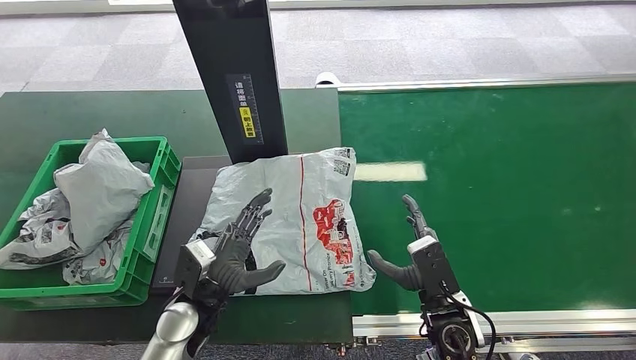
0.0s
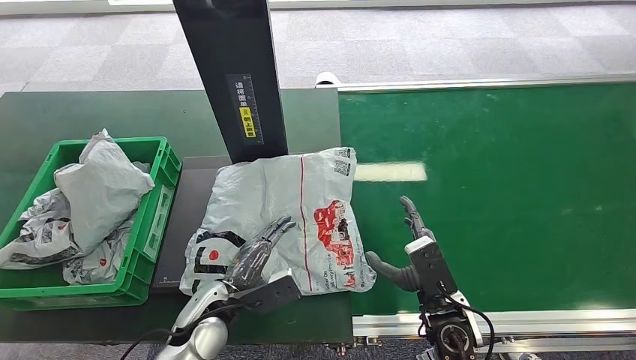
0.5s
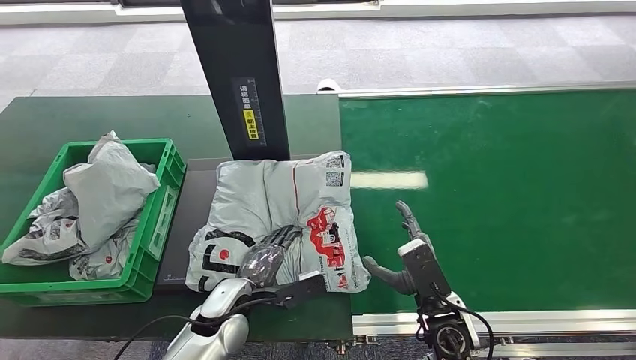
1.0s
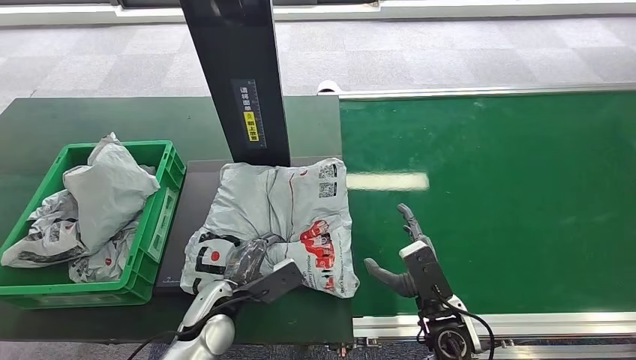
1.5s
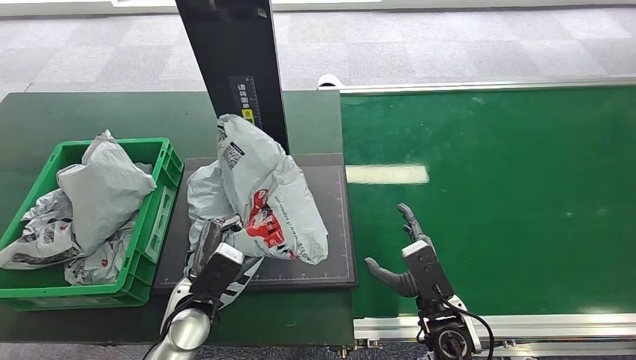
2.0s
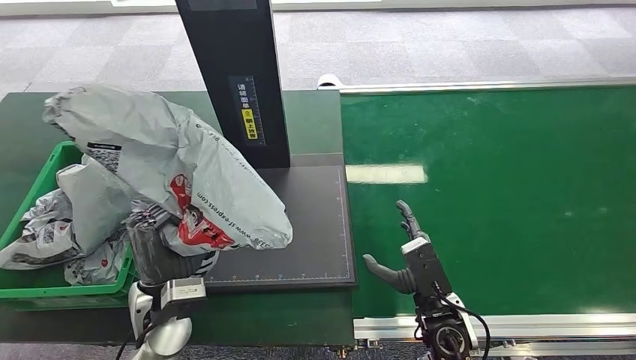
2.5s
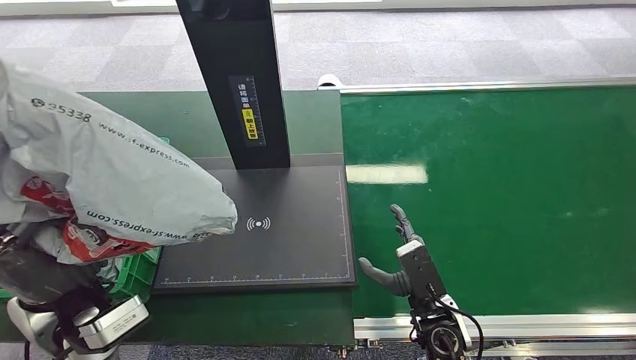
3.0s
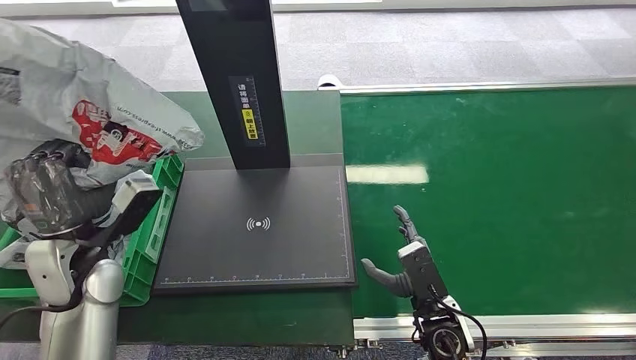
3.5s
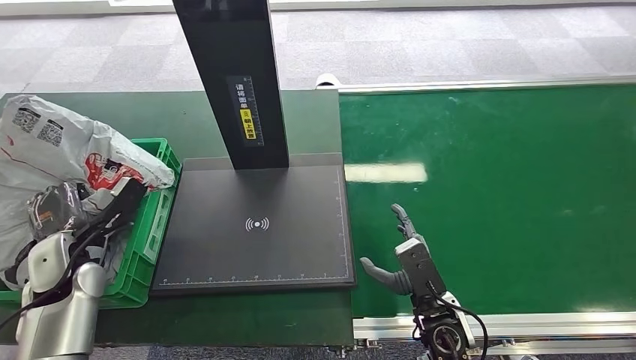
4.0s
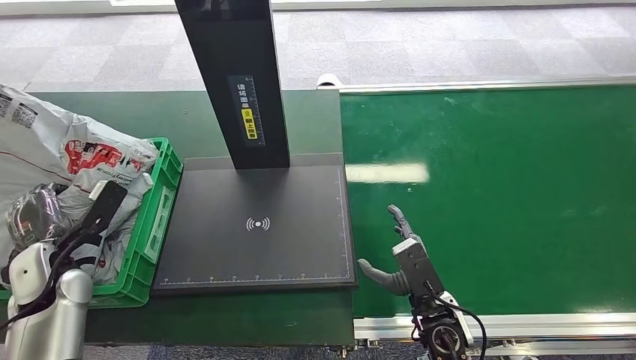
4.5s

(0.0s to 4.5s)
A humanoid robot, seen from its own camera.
Task of the whole recording: Weigh the package on the weighing device and place it in the left basket.
Step, 0.0s - 2.5s: Pick up the package from the inbound machine.
Step, 3.0s - 4.5s: Place the package into the parcel locker.

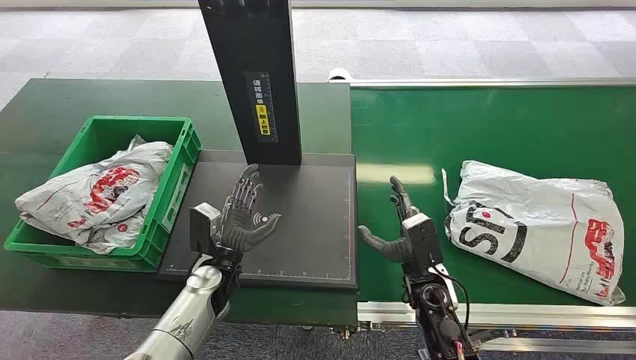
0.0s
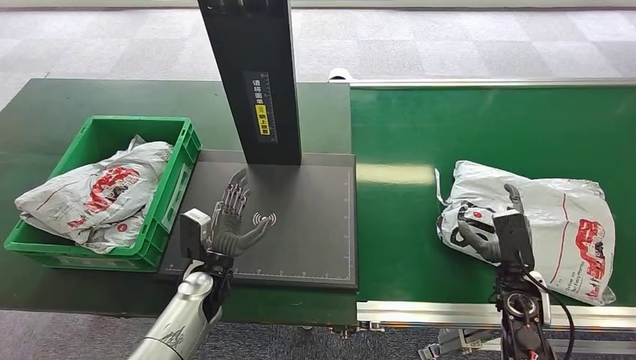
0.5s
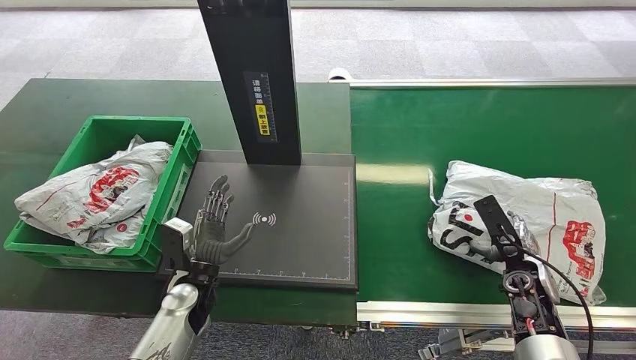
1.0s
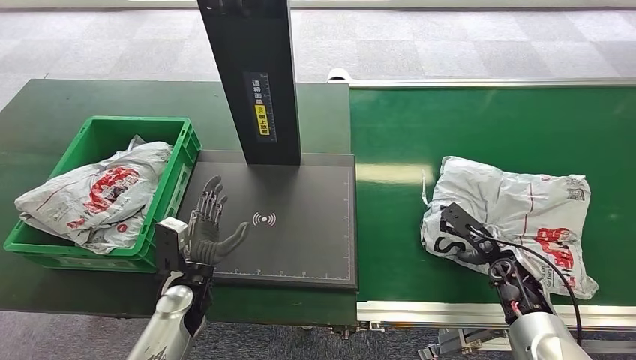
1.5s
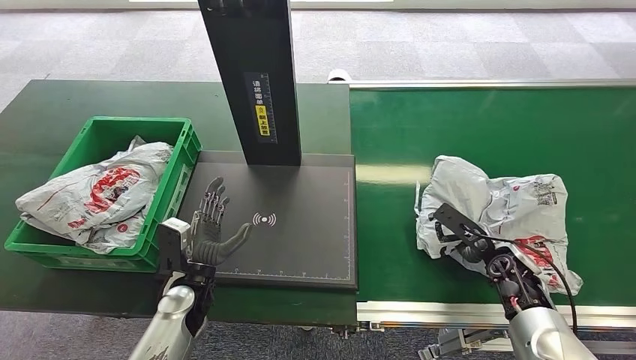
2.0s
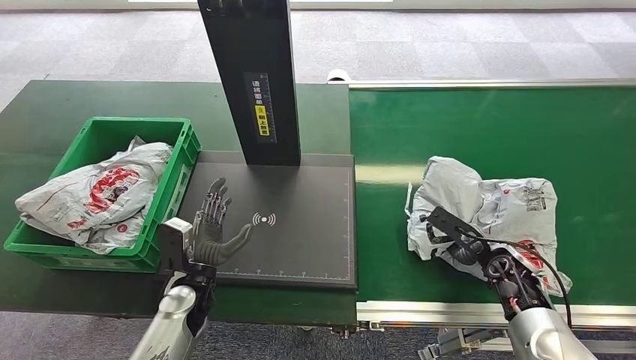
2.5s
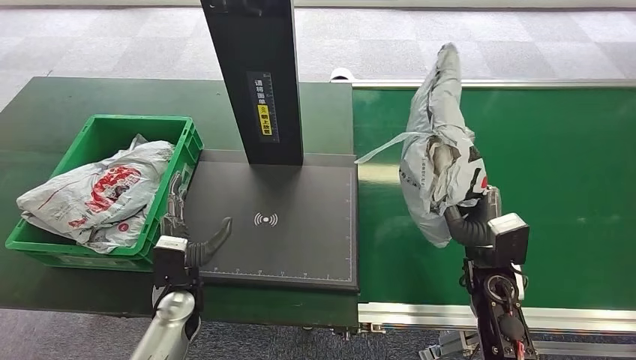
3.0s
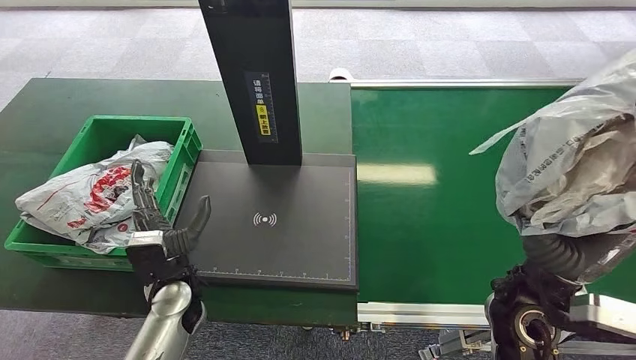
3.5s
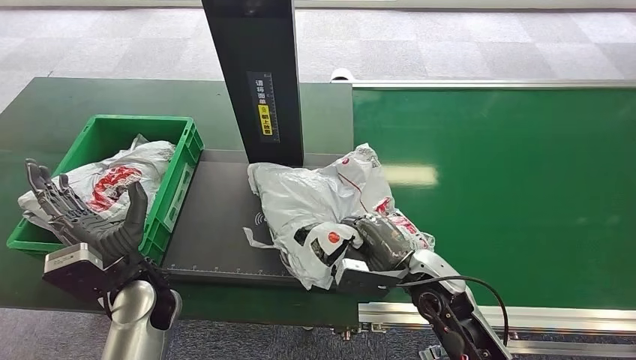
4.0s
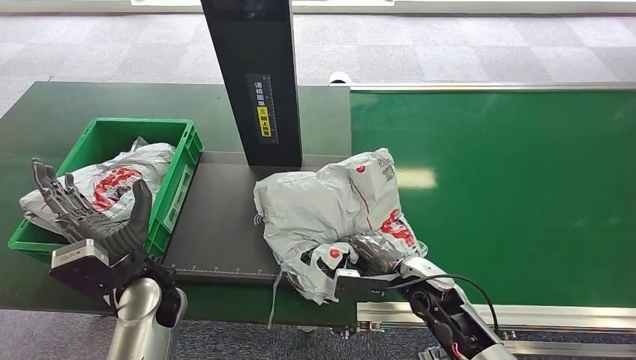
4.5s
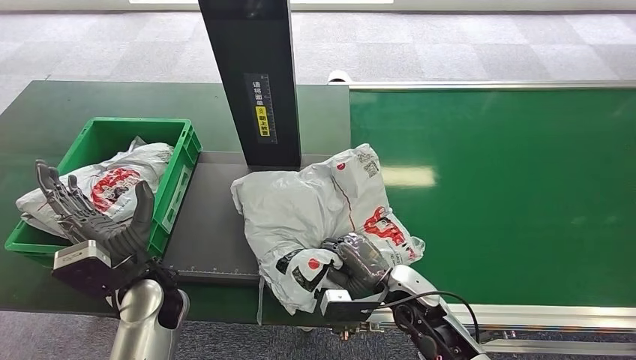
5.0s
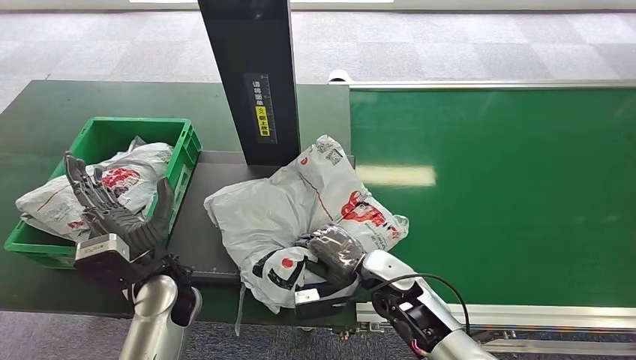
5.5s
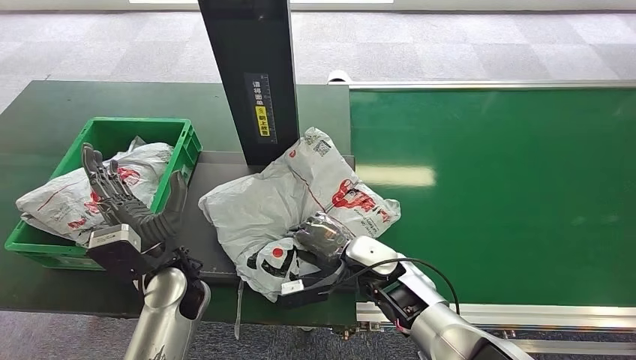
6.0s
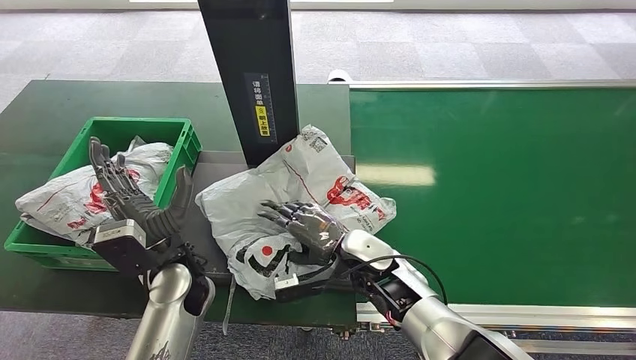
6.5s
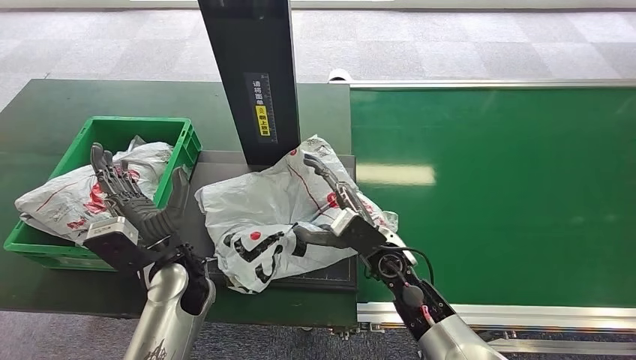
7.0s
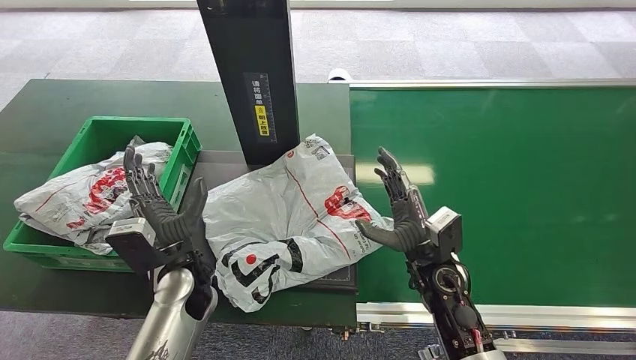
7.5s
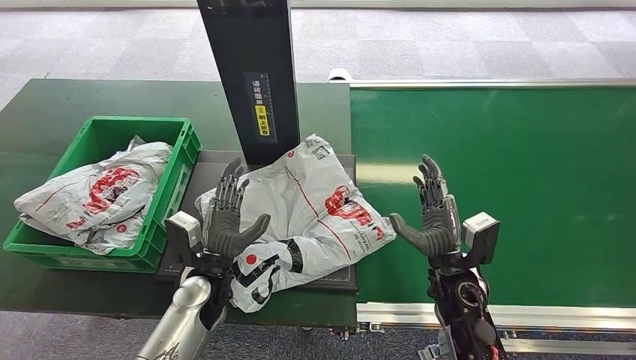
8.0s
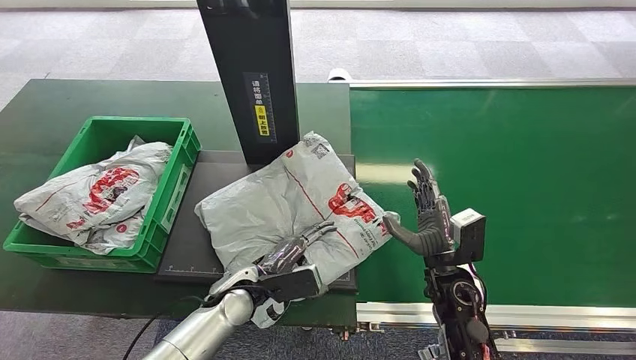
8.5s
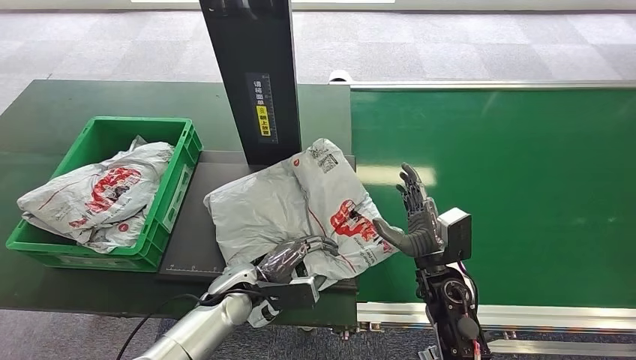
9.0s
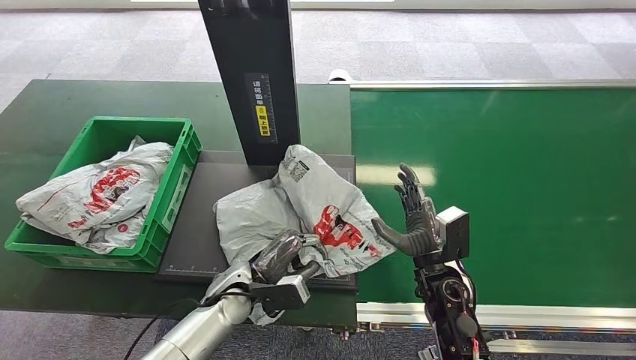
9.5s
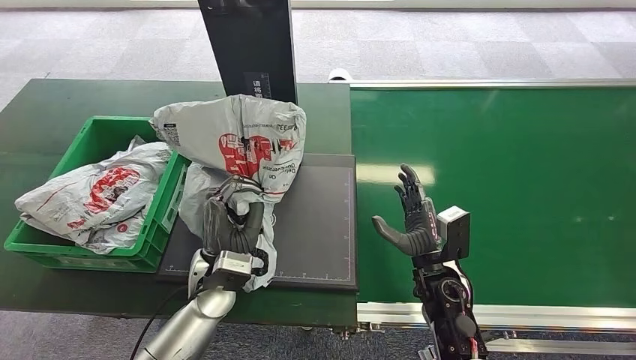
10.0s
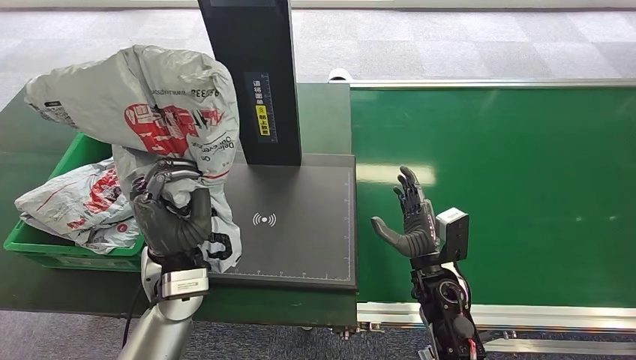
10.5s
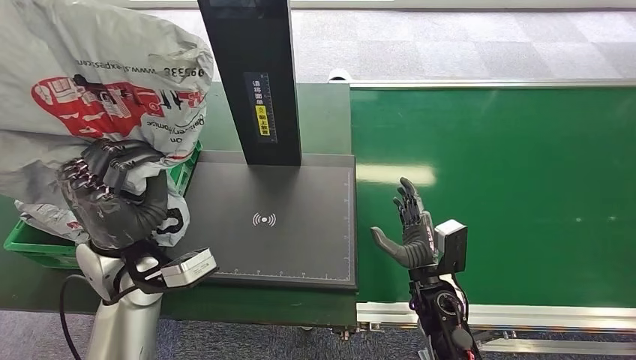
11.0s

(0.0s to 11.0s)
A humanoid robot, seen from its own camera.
Task of the whole recording: Weigh the package on the weighing device and place it in the left basket.
Step, 0.0s - 3.0s: Pick up the package from the conveyor belt.
Step, 3.5s - 7.5s: Place the package onto the inbound machine.
Step, 8.0s - 10.5s: Pick up the package from the inbound machine.
5.5s - 7.5s: The right hand is displaced to the right by roughly 5 cm.
7.5s - 9.0s: The left hand travels downward and to the right by approximately 10 cm.

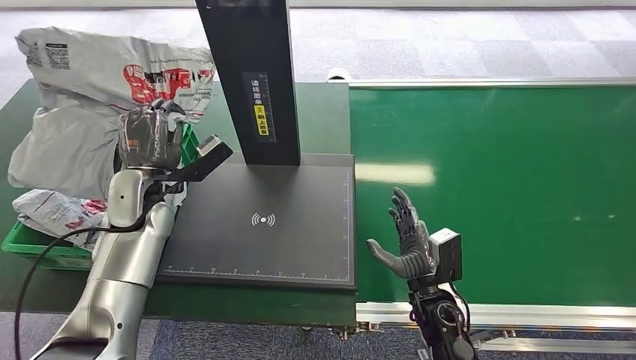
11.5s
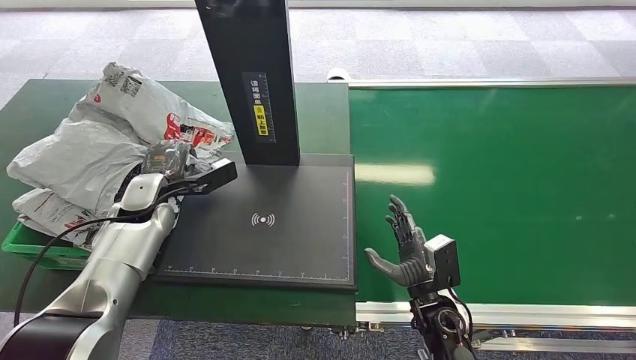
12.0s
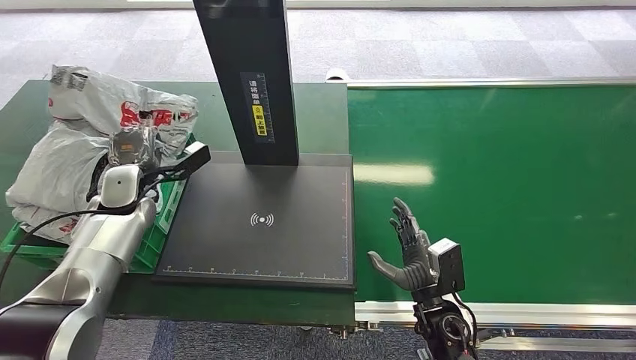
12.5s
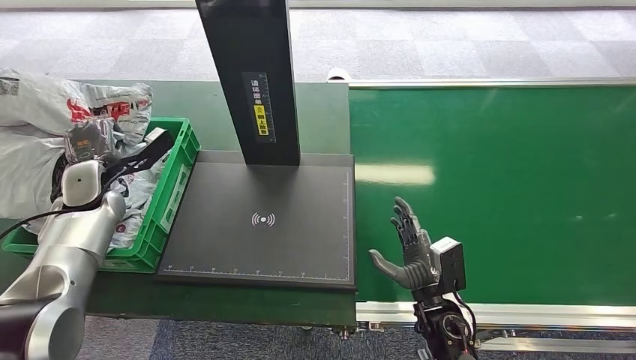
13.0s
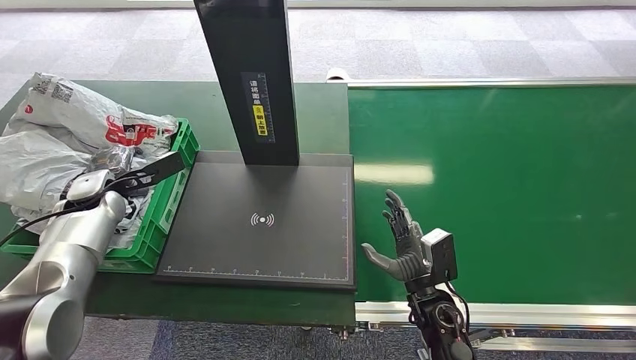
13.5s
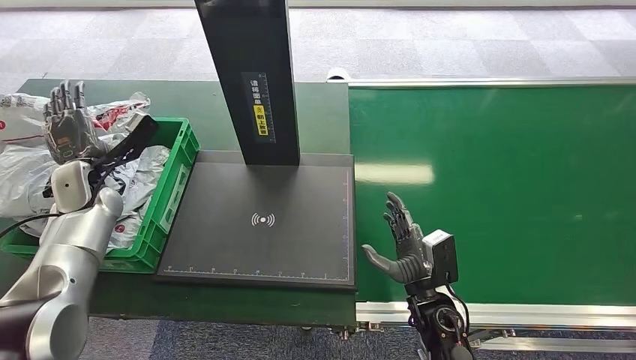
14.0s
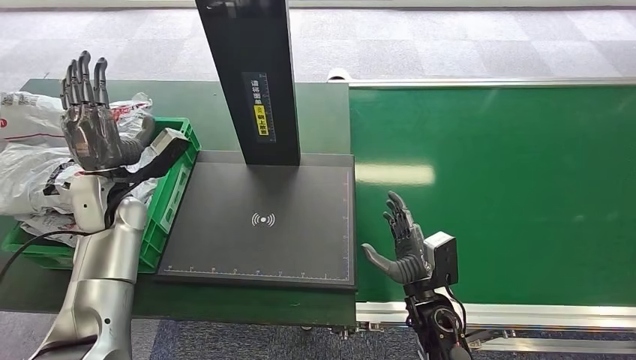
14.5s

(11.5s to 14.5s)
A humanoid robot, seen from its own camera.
Task of the whole recording: Weigh the package on the weighing device and place it in the left basket.
Step, 11.5s - 14.5s: Place the package into the parcel locker.
13.0s - 14.5s: The left hand goes about 5 cm to the right.

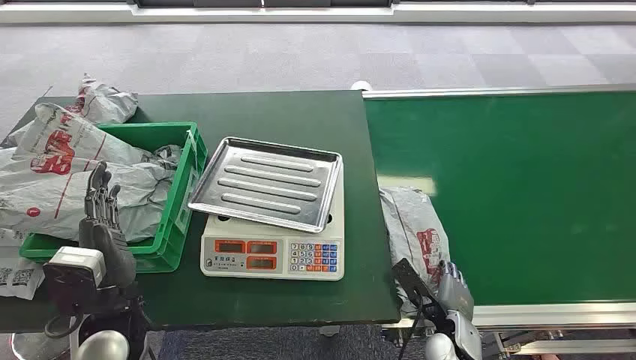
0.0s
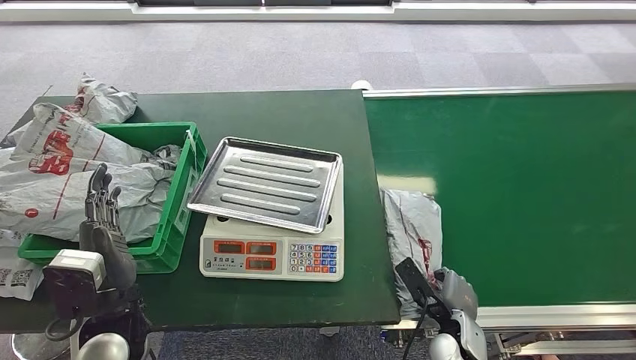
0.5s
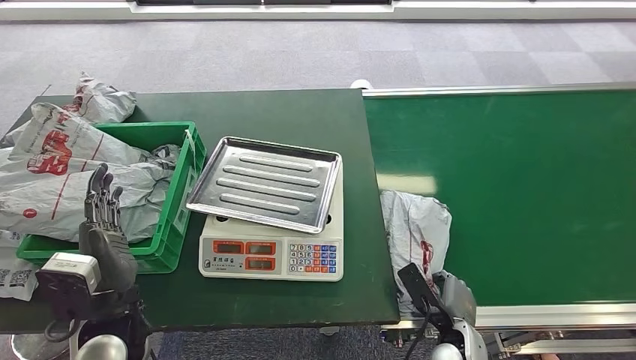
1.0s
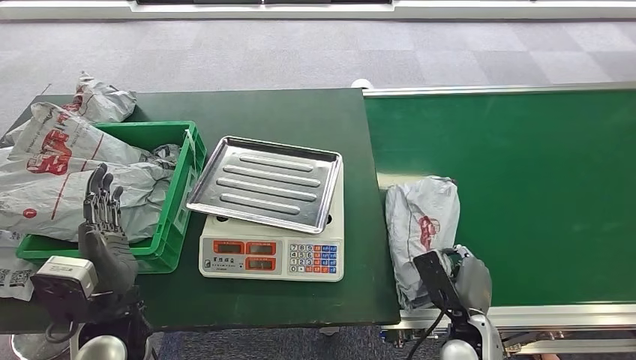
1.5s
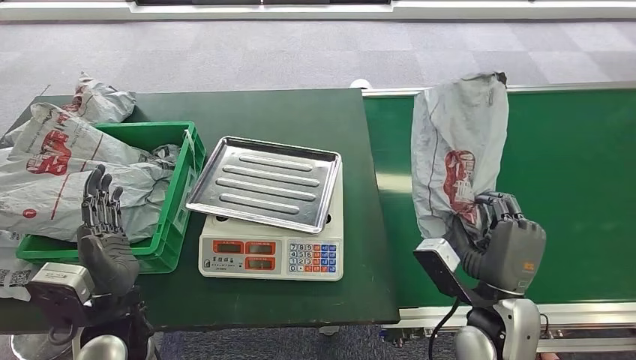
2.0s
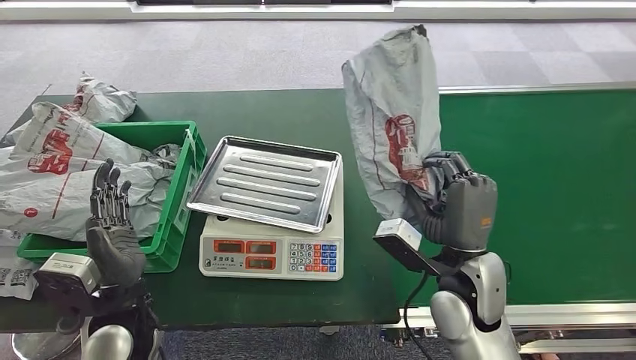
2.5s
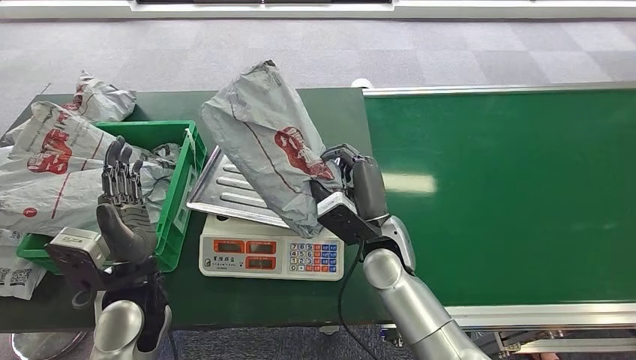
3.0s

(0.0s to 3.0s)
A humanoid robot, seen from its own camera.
Task of the whole recording: Weigh the package on the weighing device and place it in the left basket.
Step, 0.0s - 2.0s: Pick up the package from the conveyor belt.
